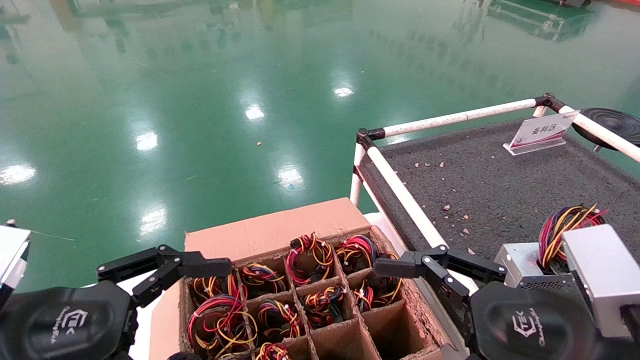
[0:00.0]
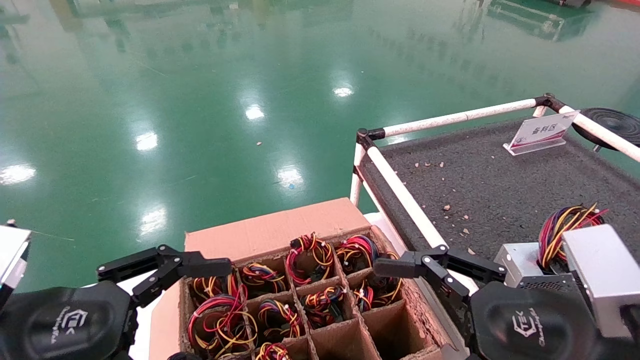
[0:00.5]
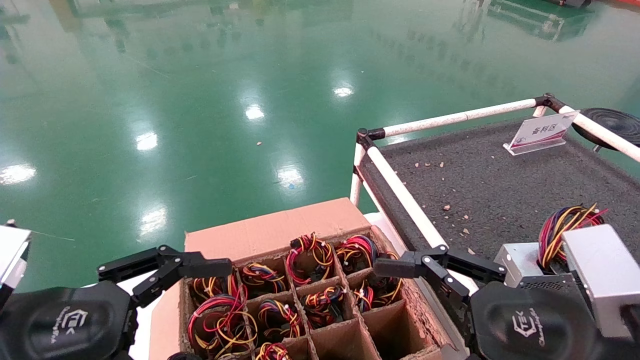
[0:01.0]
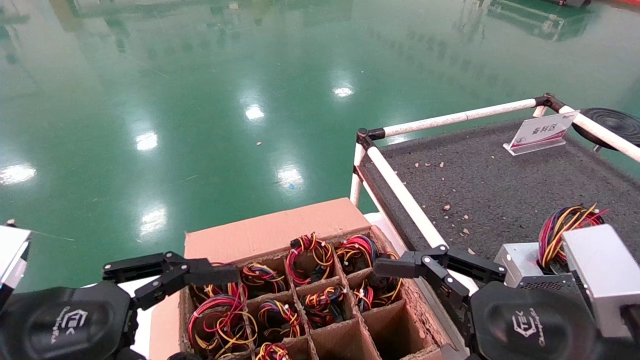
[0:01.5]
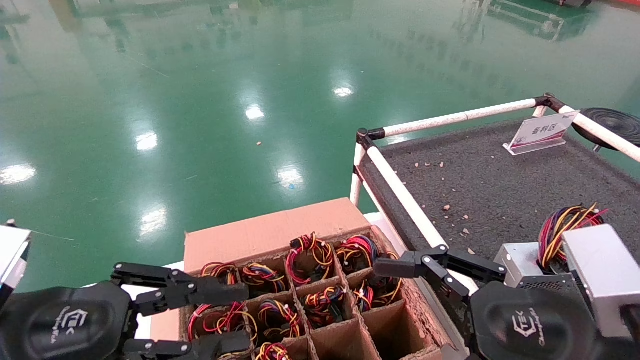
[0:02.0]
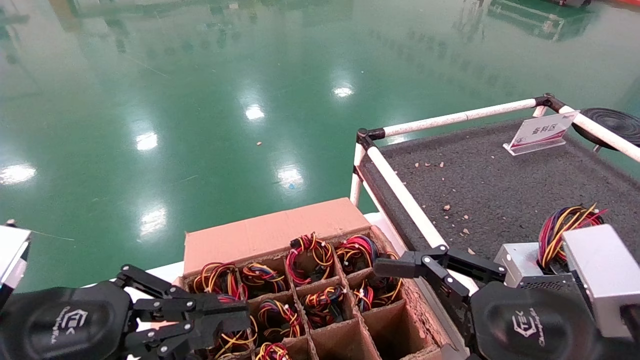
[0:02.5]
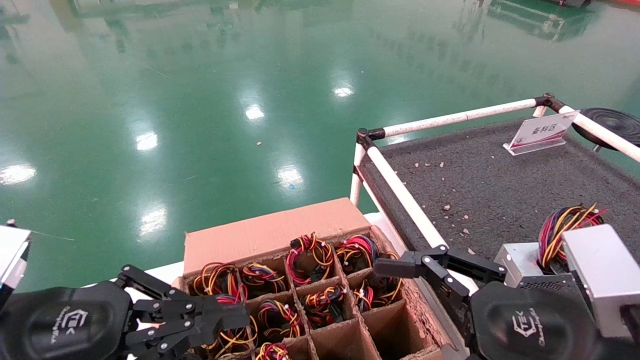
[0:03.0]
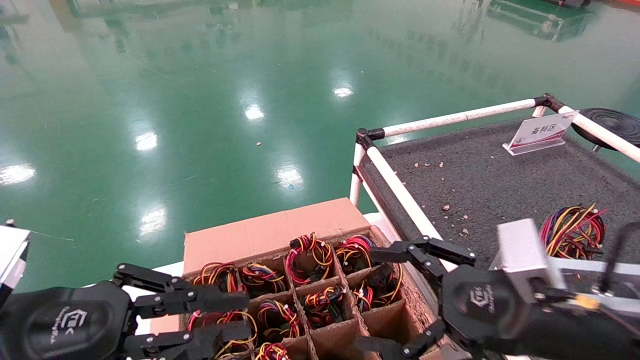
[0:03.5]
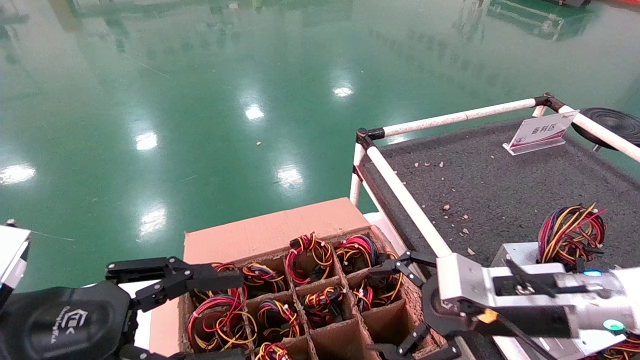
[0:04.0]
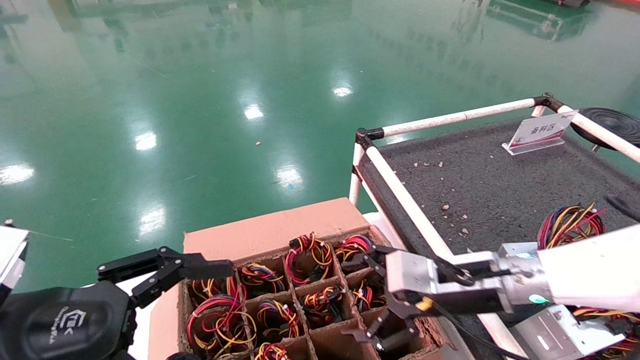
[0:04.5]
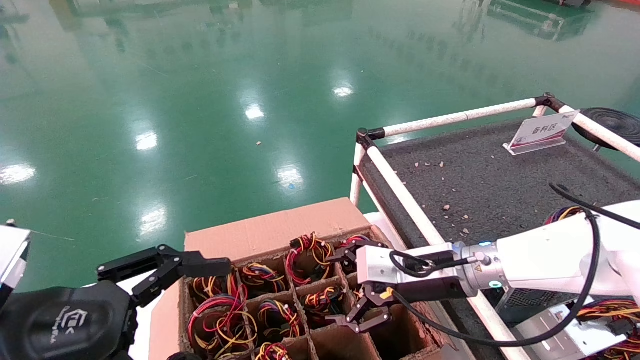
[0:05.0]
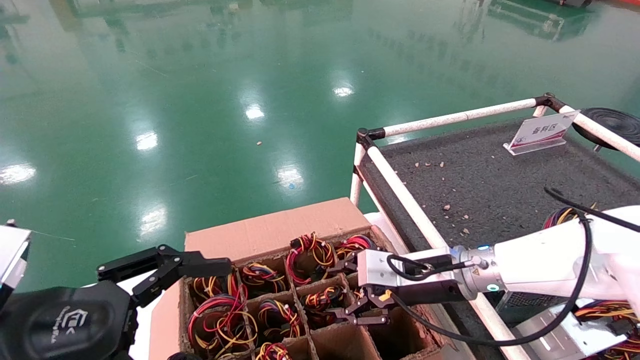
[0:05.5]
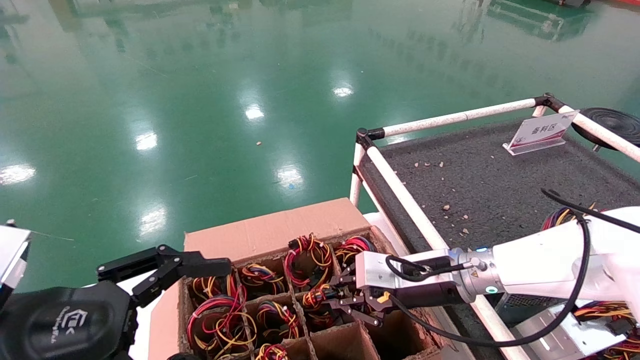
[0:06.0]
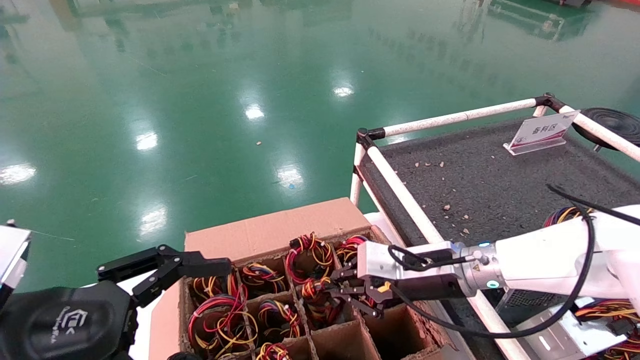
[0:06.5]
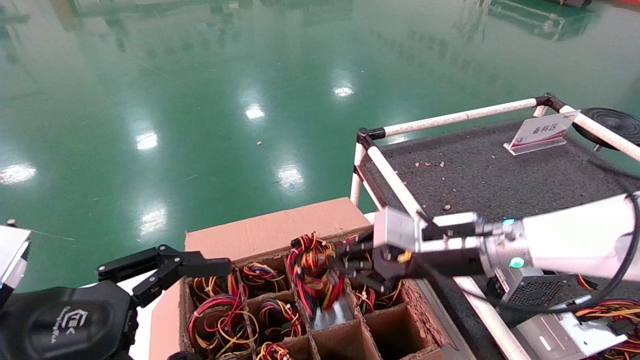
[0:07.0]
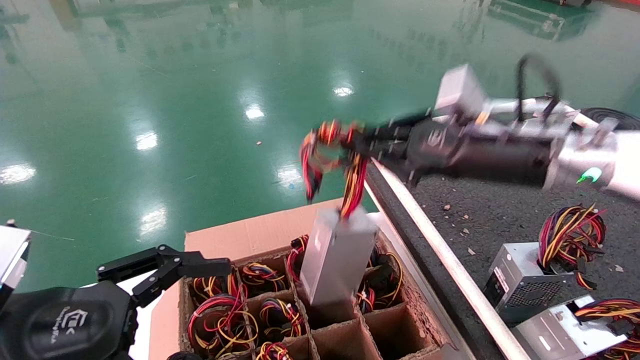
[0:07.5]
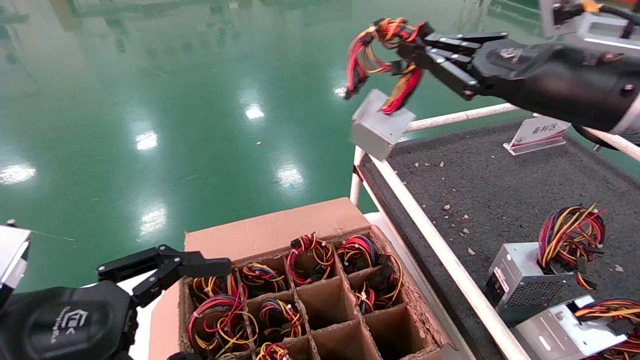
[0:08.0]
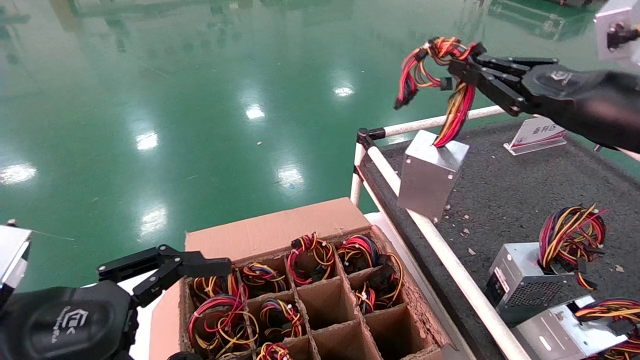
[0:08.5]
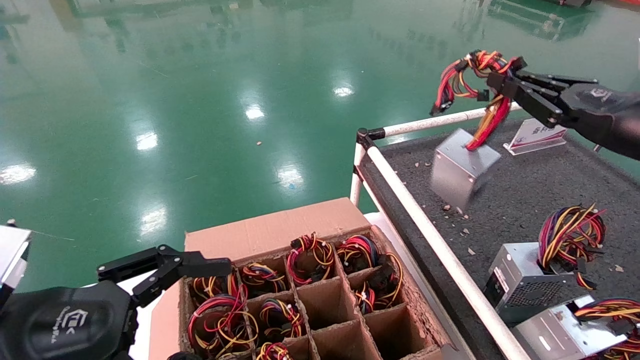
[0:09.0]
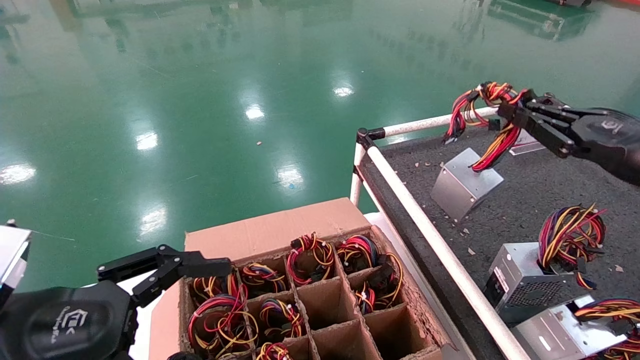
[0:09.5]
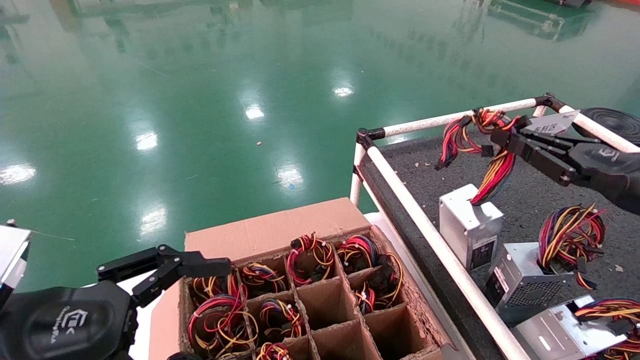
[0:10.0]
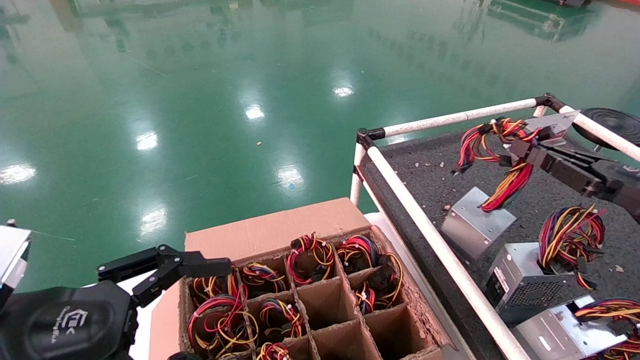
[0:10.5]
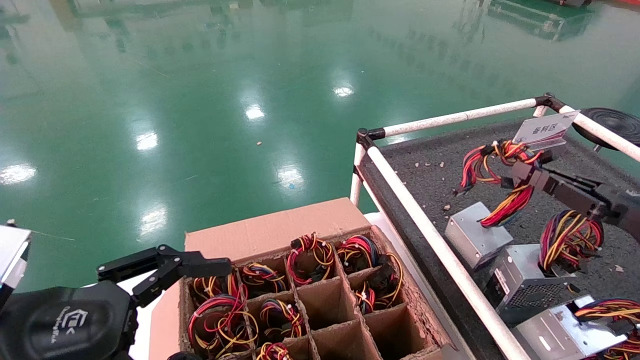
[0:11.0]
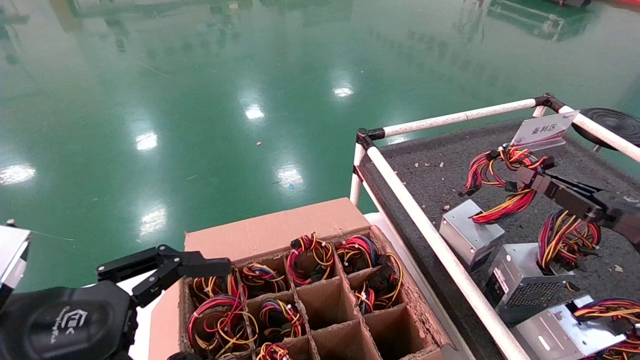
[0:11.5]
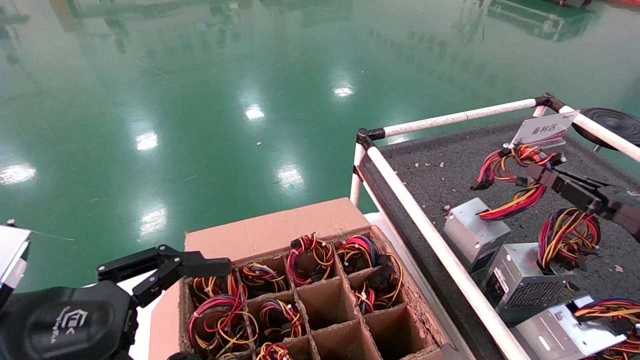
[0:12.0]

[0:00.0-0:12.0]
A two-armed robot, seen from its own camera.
Step, 0:03.5 to 0:06.5: Grab and lift the power supply from the large box.
0:00.0 to 0:02.0: The left gripper closes its fingers.
0:02.0 to 0:04.0: The right gripper is displaced forward by some 15 cm; the left gripper closes and opens again.
0:04.0 to 0:06.0: The left gripper opens, while the right gripper shifts approximately 10 cm forward and to the left, and closes its fingers.
0:06.0 to 0:08.0: The right gripper moves upward and to the right, some 25 cm.
0:08.0 to 0:10.0: The right gripper travels to the right and downward by roughly 15 cm.
0:10.0 to 0:12.0: The right gripper moves downward, some 5 cm.

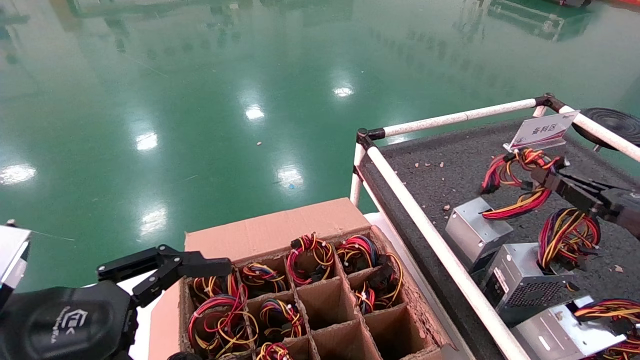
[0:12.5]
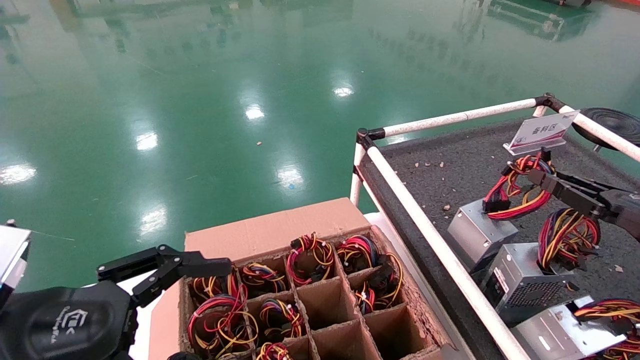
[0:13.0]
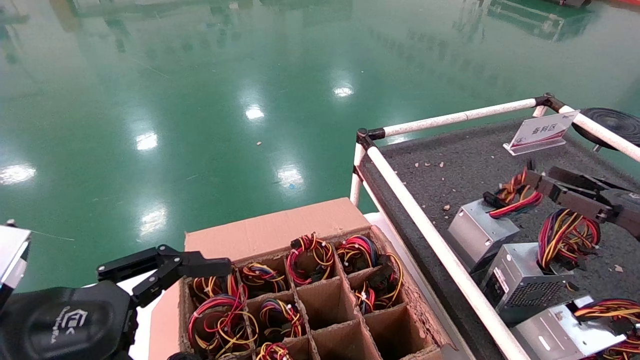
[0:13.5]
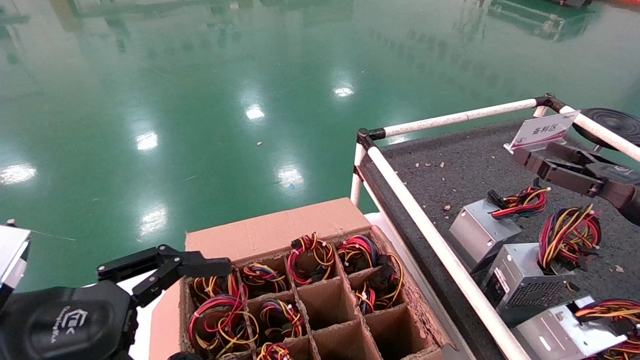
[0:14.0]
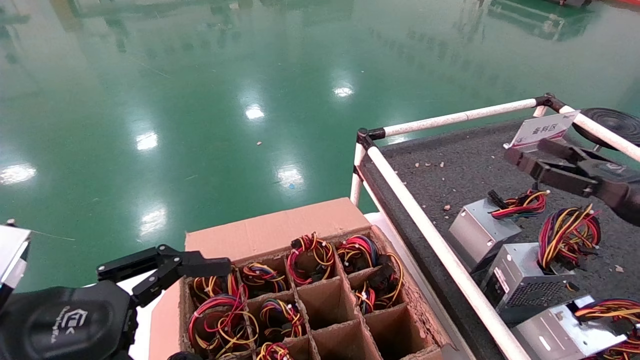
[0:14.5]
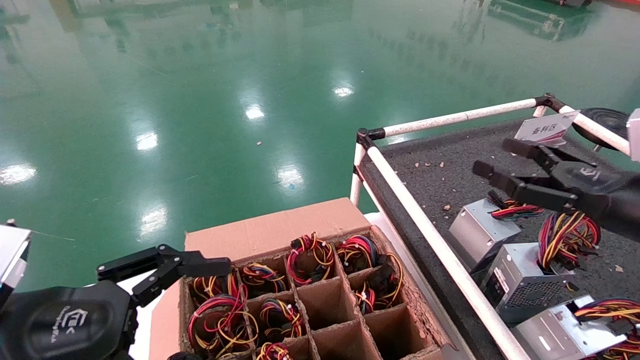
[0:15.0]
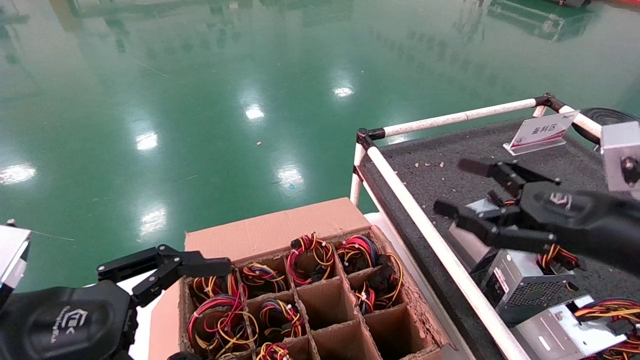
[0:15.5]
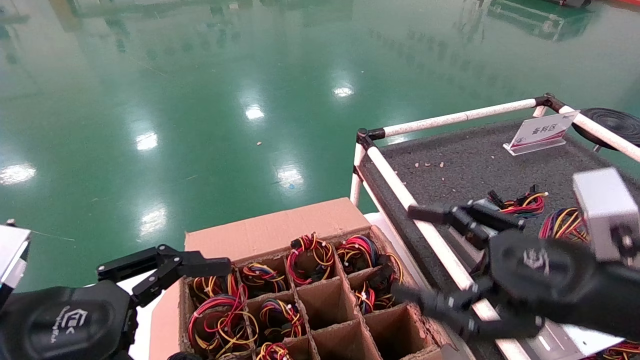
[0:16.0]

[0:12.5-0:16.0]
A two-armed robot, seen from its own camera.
0:12.5 to 0:14.5: The right gripper opens up.
0:14.5 to 0:16.0: The right gripper moves to the left and backward, roughly 20 cm.
